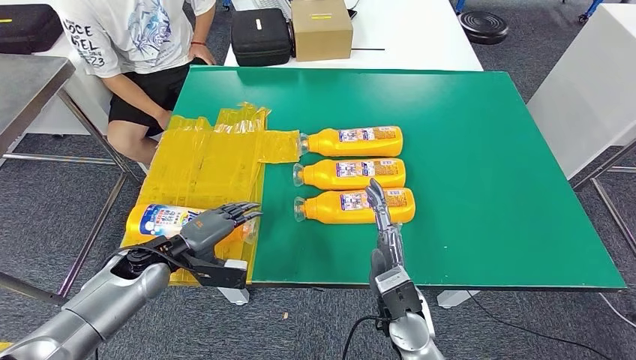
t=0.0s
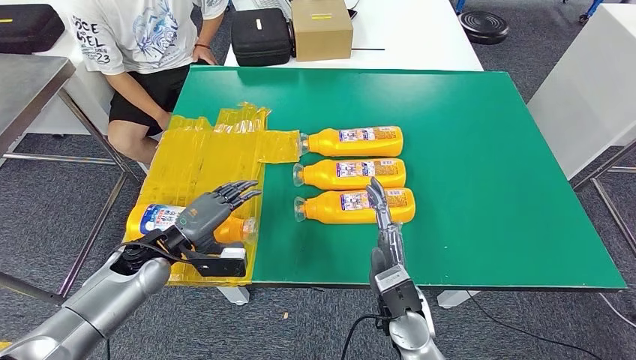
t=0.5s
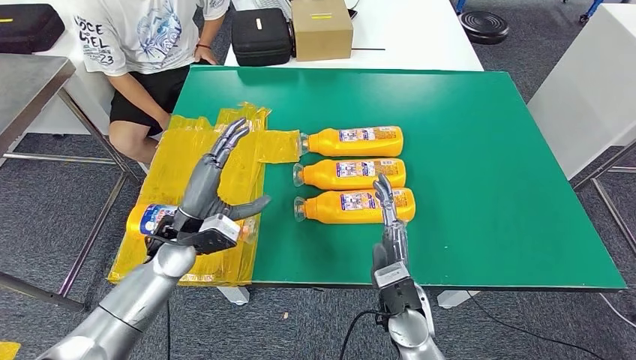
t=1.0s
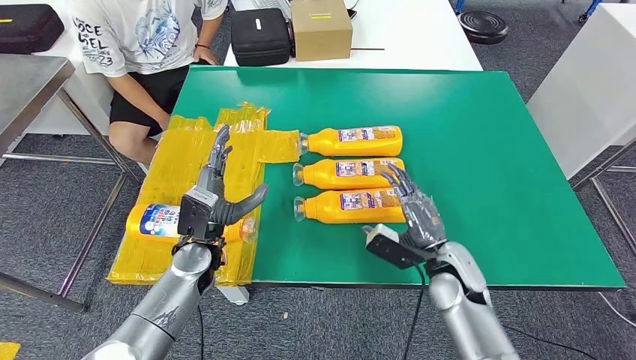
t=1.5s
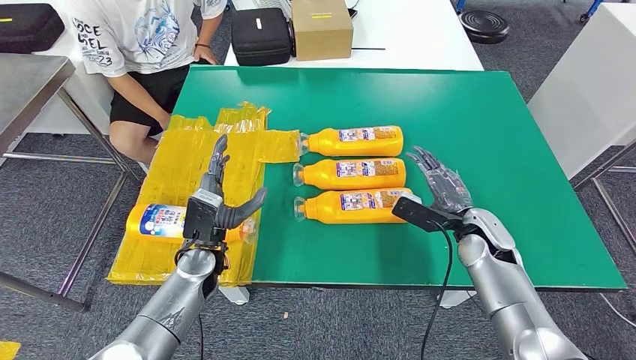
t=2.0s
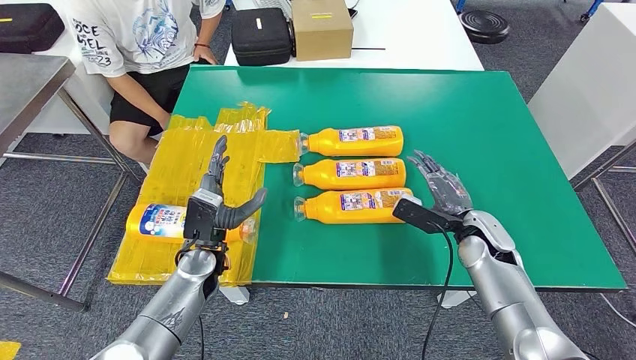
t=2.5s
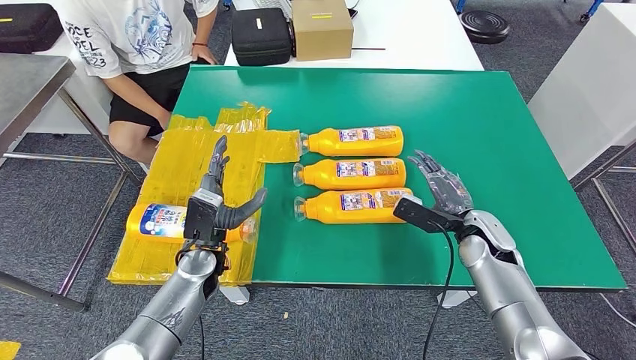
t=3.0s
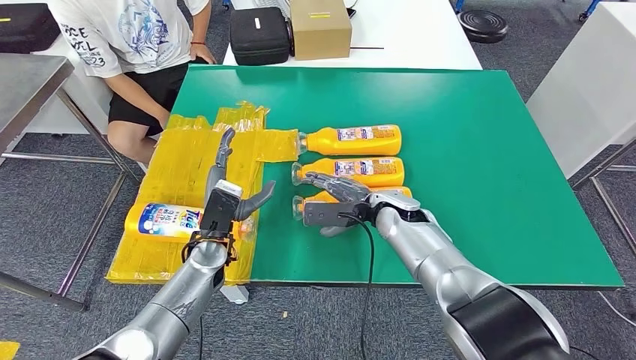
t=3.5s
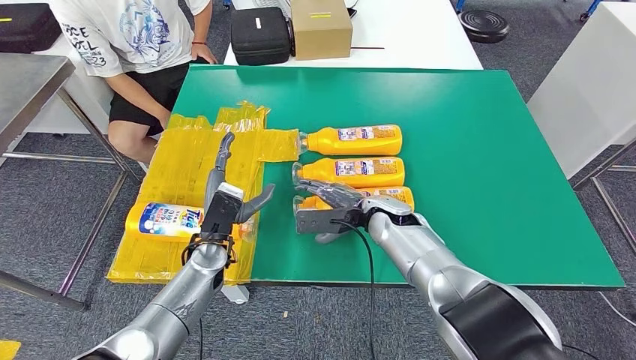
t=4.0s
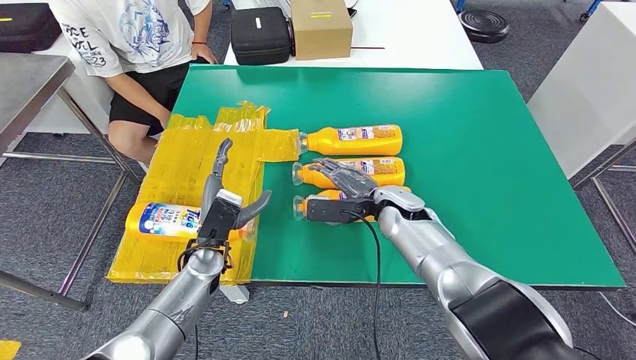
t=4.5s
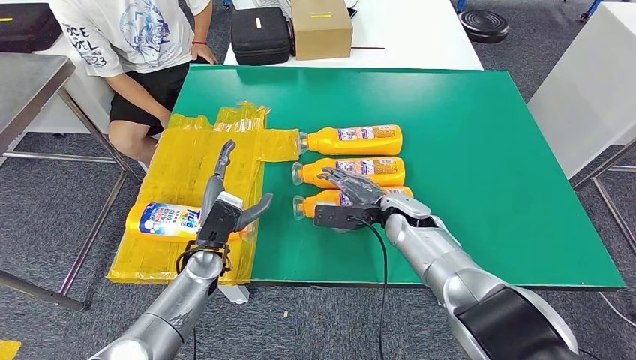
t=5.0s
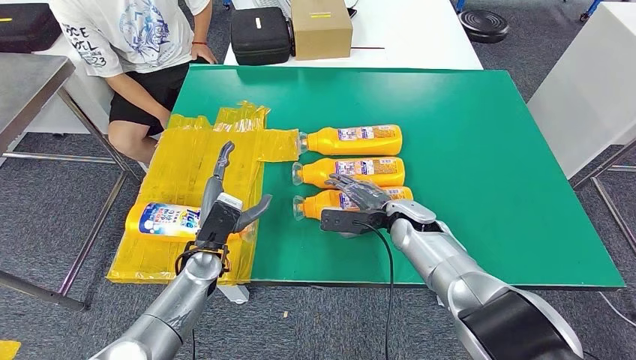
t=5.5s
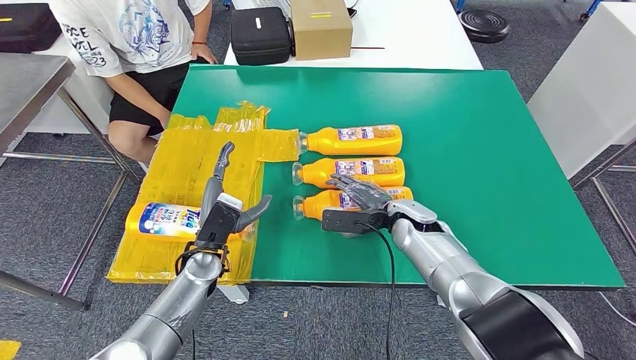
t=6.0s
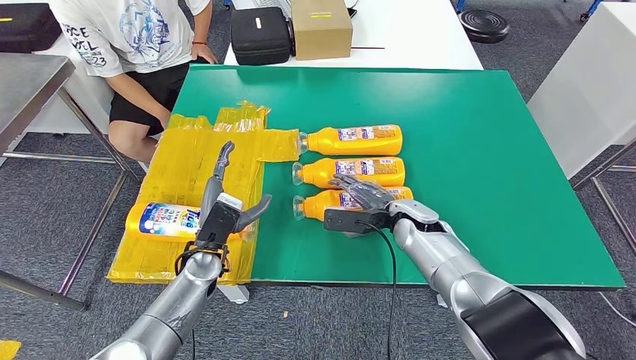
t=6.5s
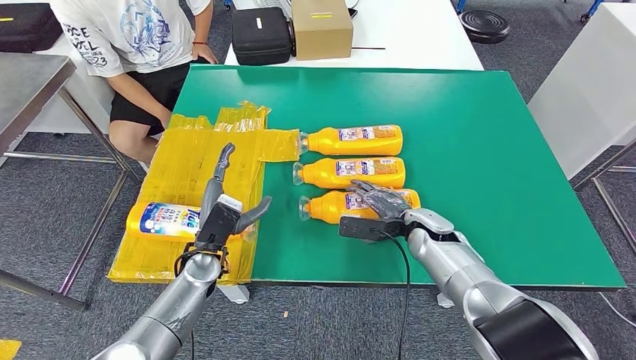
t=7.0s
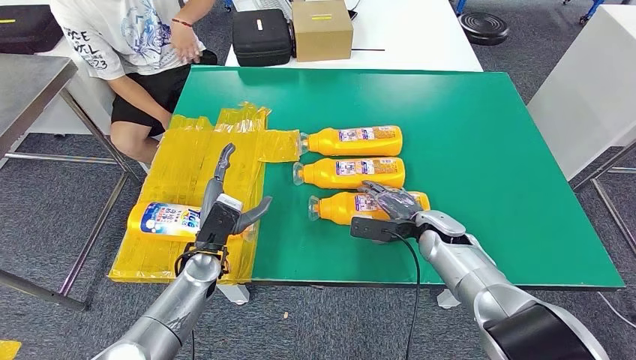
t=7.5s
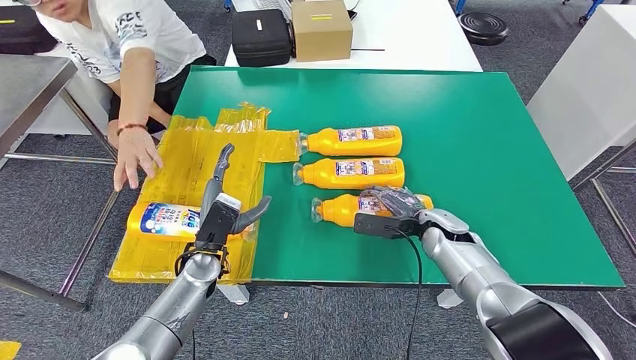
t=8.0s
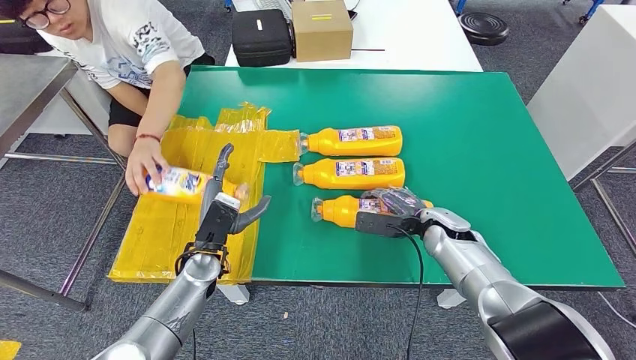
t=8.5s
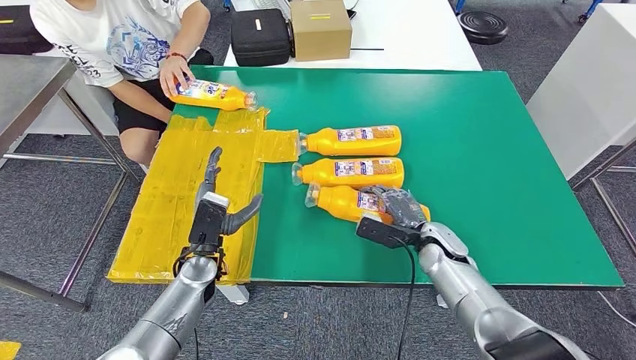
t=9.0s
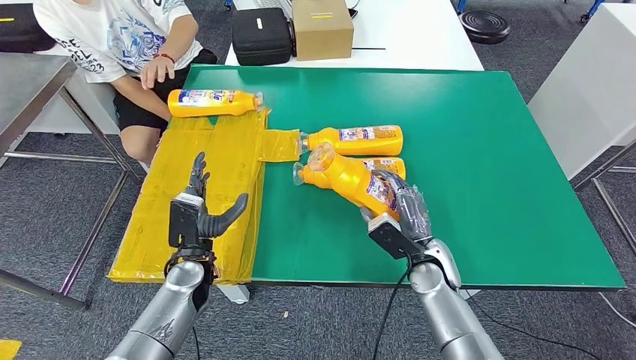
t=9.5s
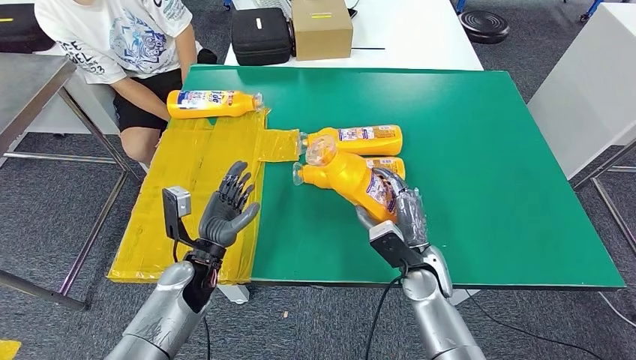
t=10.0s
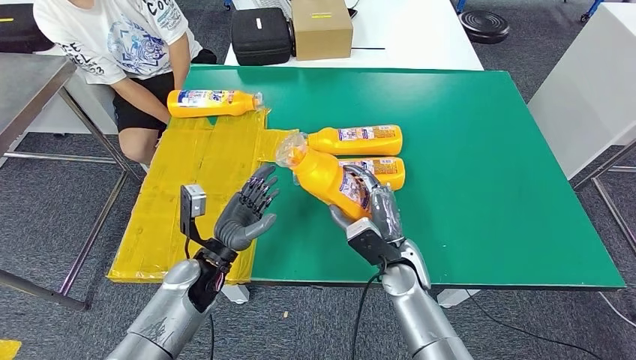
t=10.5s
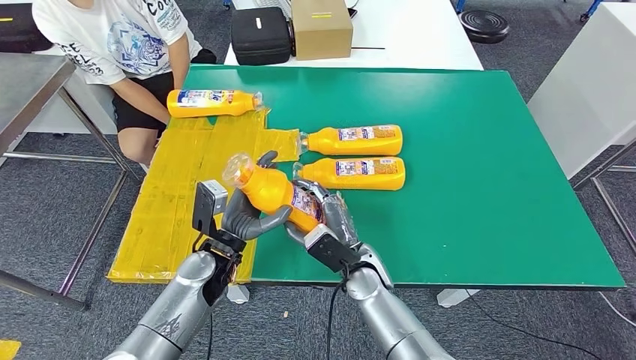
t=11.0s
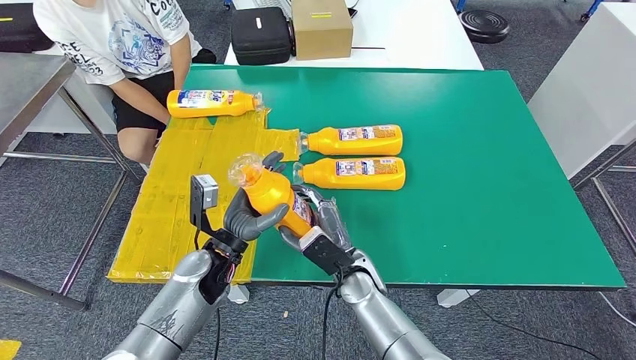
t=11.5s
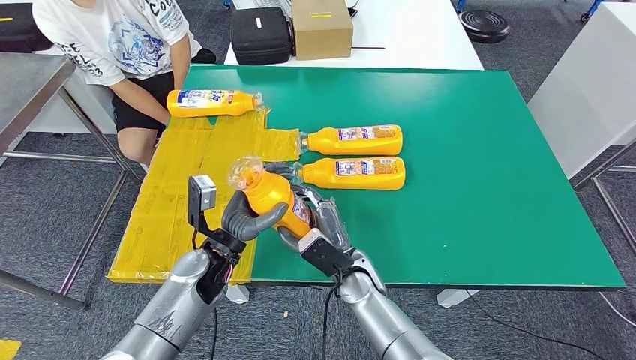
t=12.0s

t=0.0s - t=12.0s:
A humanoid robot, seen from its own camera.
Step, t=7.5s - t=9.5s: Pick up the fast-moving consumer goods bottle from the table.
t=0.0s - t=2.0s: The right hand travels to the right and forward by about 20 cm. The left hand shifts approximately 10 cm to the right.
t=2.0s - t=4.0s: The right hand moves to the left, some 15 cm.
t=4.0s - t=6.0s: The right hand shifts by approximately 5 cm.
t=6.0s - t=8.0s: The right hand travels to the right by roughly 5 cm.
t=10.0s - t=12.0s: The left hand moves roughly 5 cm. The right hand travels to the left by roughly 10 cm.

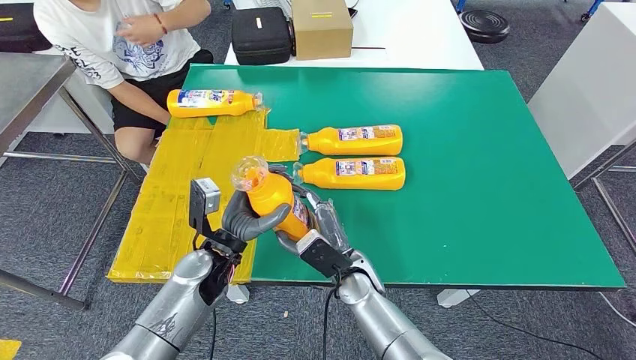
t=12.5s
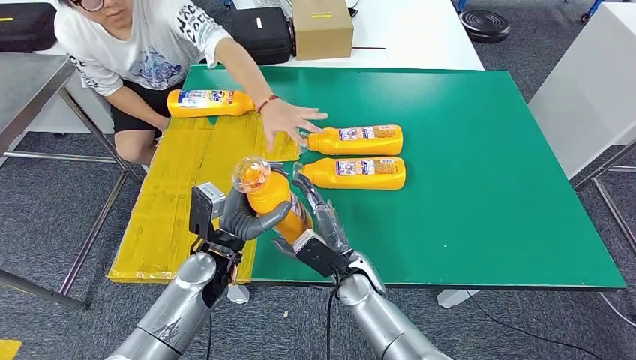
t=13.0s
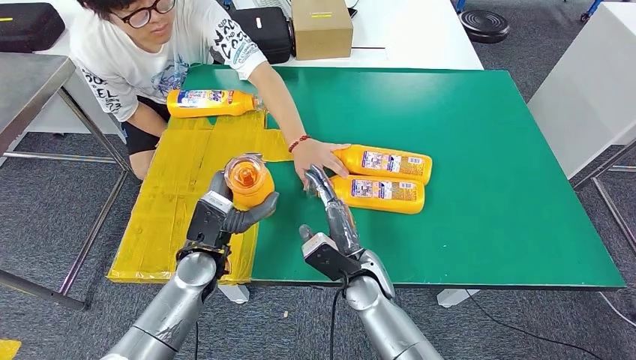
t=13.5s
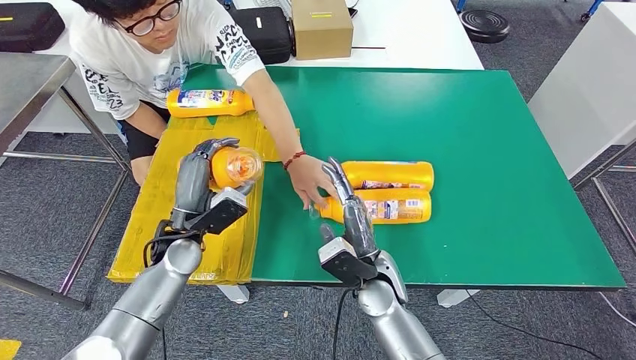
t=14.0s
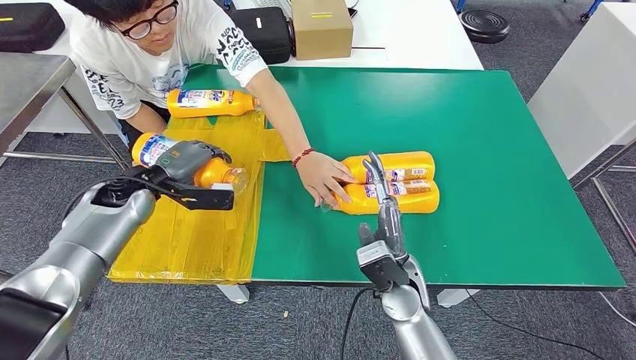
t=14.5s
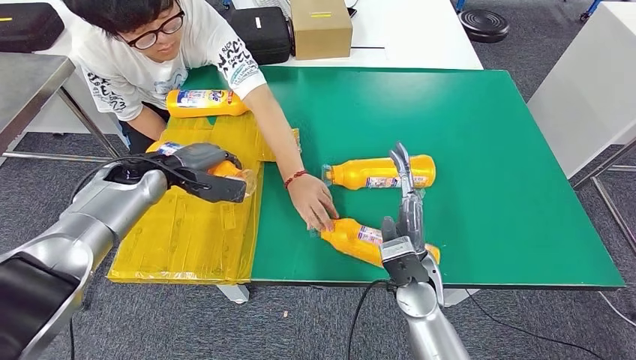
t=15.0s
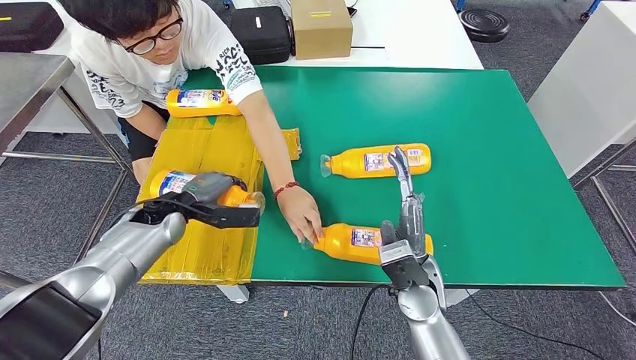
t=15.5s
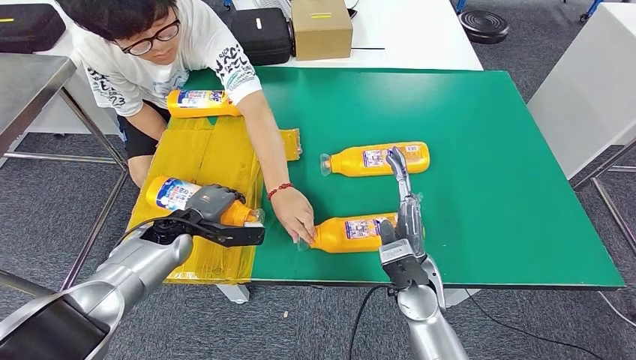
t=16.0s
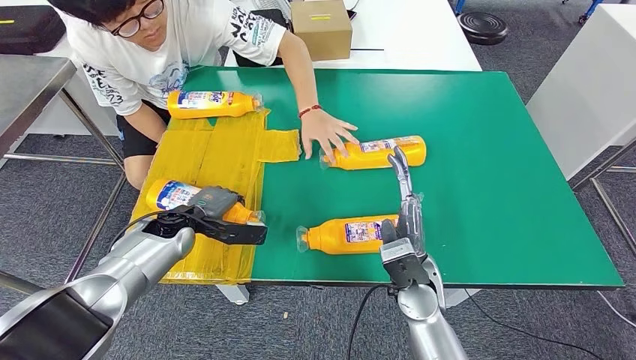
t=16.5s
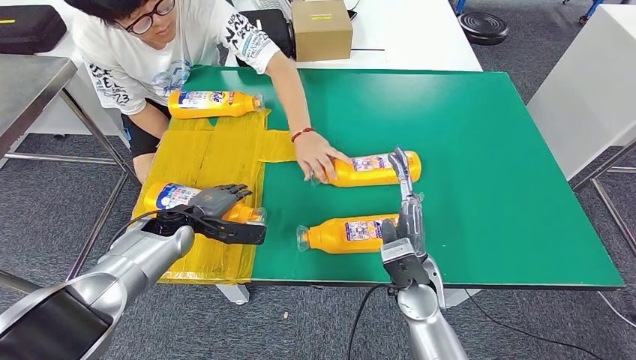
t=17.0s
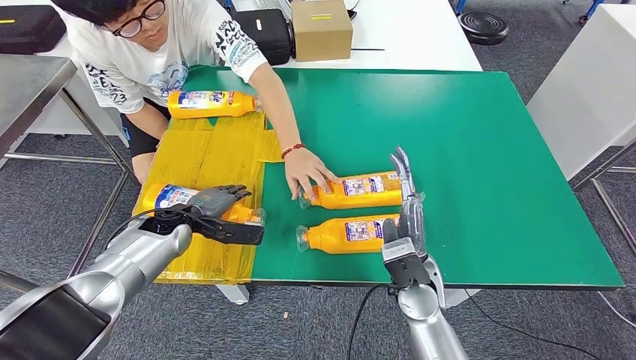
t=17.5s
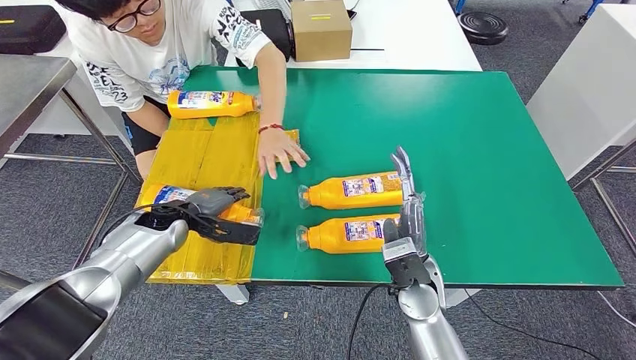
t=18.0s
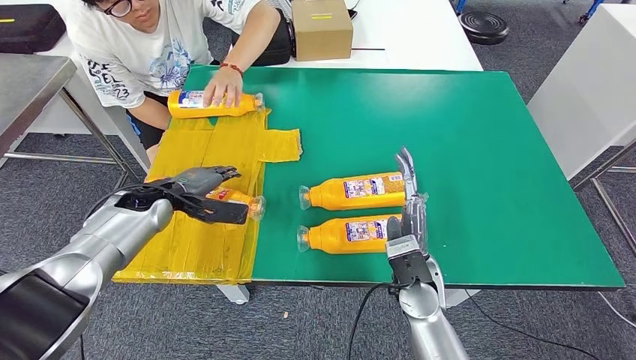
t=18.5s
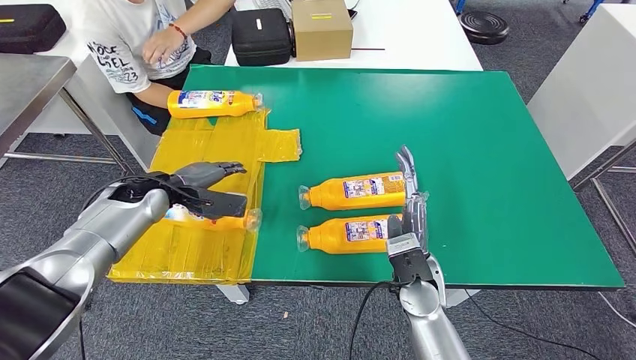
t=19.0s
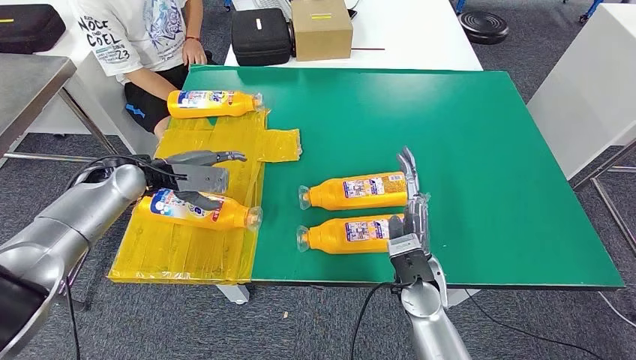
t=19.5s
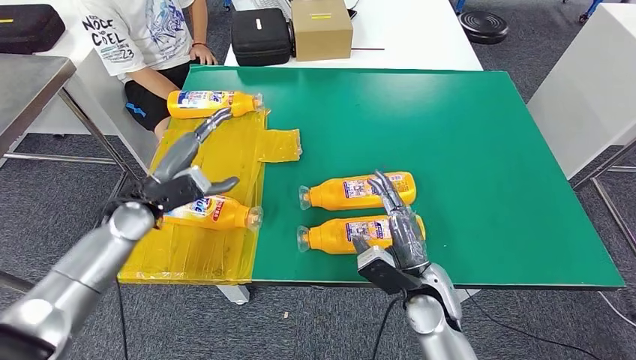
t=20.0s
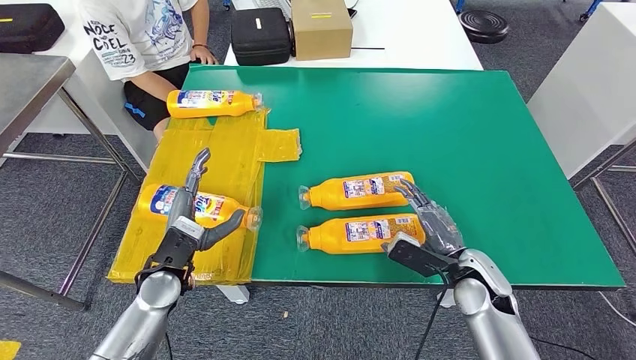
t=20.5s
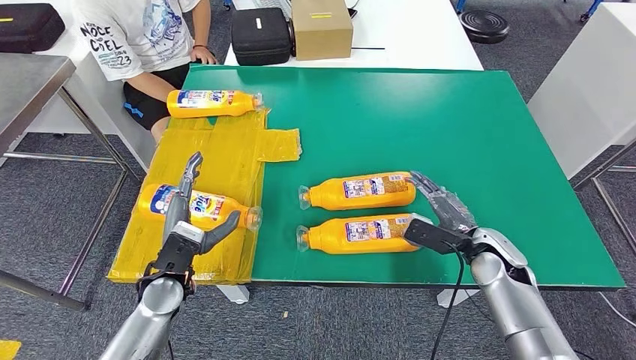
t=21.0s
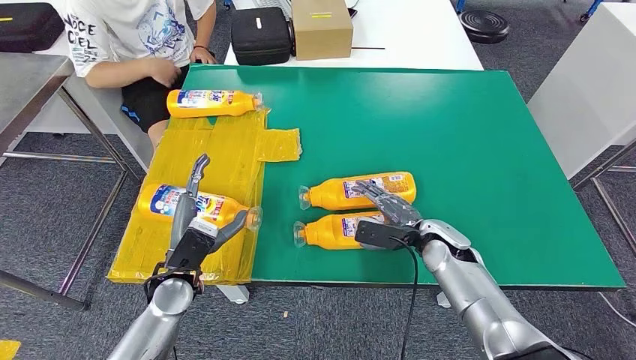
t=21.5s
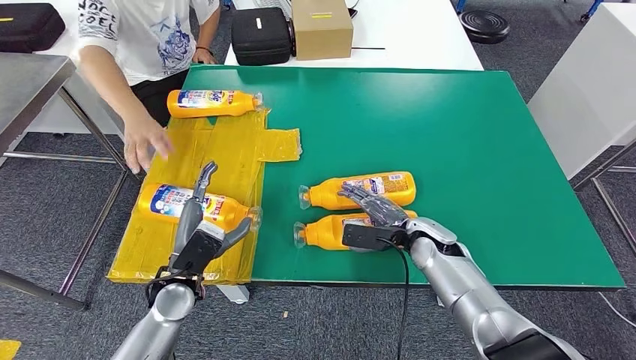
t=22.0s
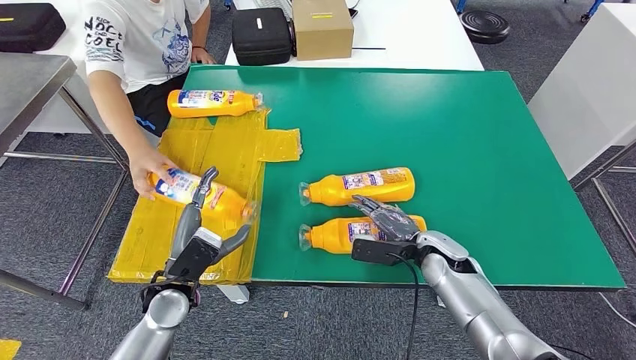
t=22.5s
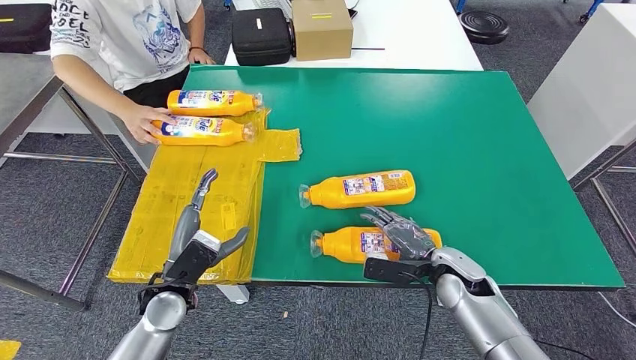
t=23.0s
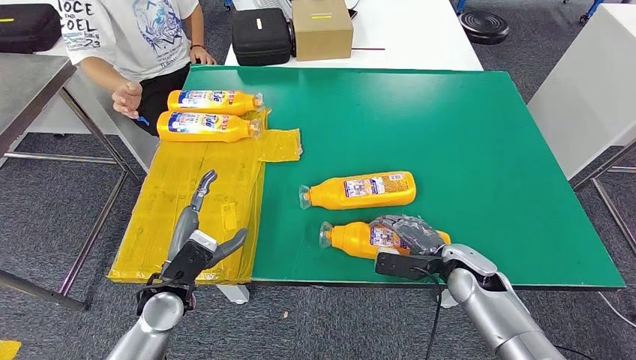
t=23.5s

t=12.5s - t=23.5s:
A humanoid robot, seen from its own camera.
Step, t=12.5s - t=19.5s: Flip the fast-moving consumer goods bottle to the front side.
t=16.0s - t=18.0s: The hands stay close to where they were, moving slightly.
t=21.5s - t=23.5s: The right hand is displaced backward by roughly 5 cm.
